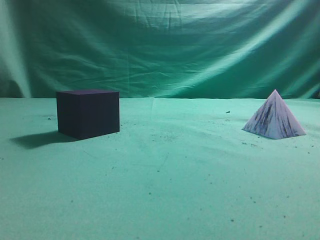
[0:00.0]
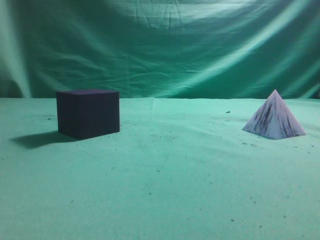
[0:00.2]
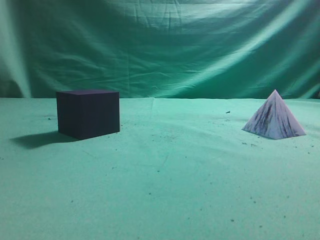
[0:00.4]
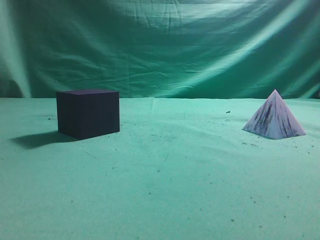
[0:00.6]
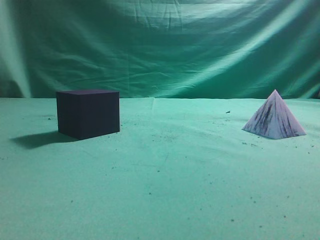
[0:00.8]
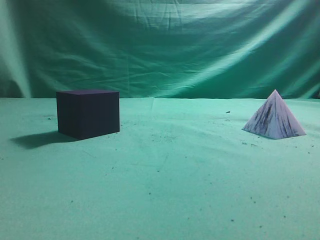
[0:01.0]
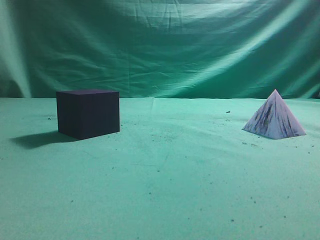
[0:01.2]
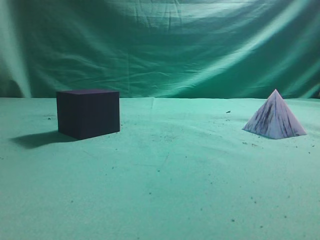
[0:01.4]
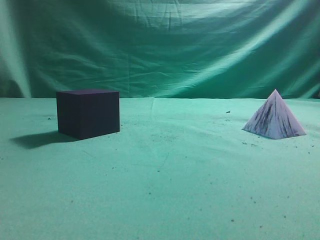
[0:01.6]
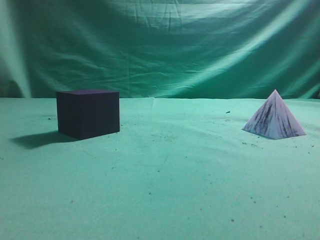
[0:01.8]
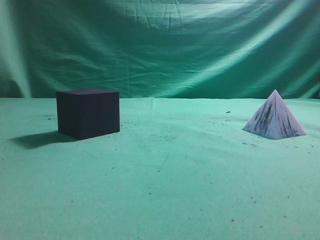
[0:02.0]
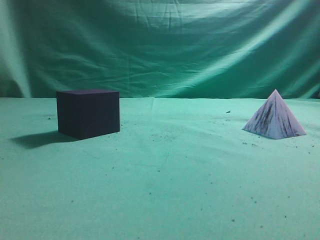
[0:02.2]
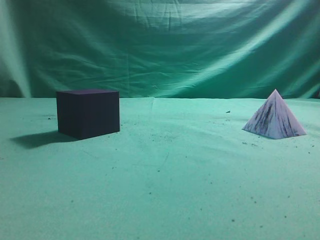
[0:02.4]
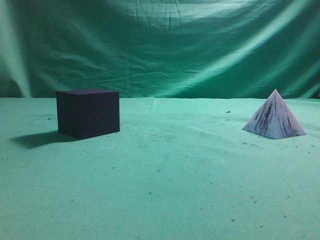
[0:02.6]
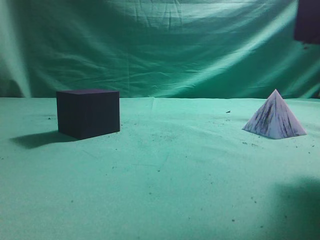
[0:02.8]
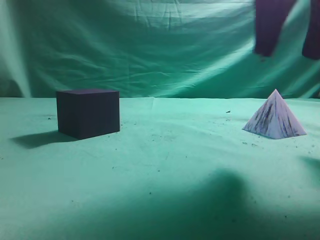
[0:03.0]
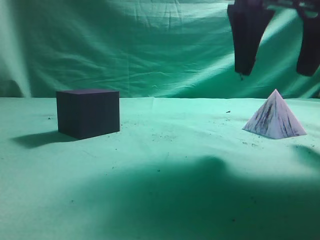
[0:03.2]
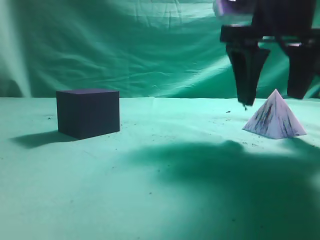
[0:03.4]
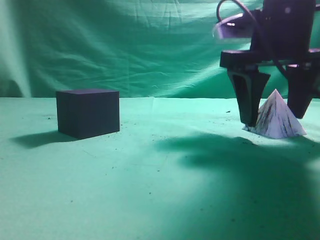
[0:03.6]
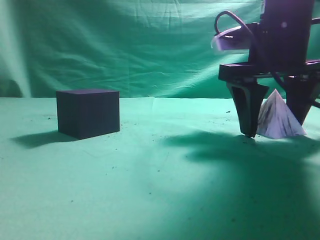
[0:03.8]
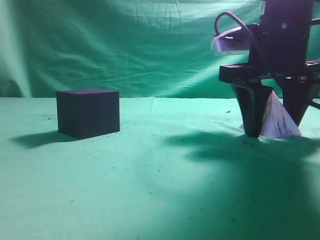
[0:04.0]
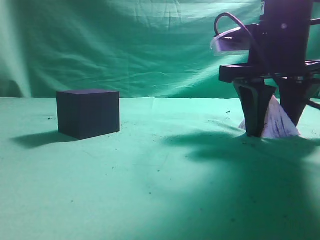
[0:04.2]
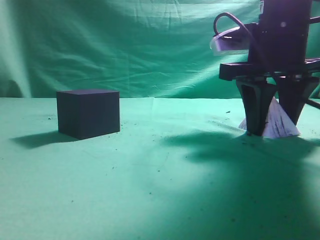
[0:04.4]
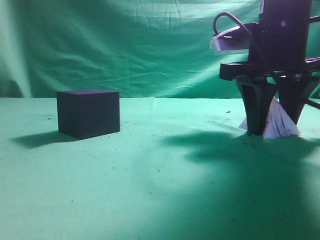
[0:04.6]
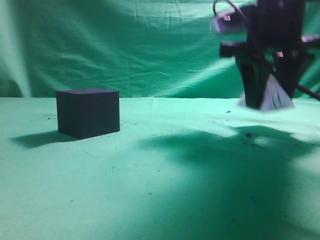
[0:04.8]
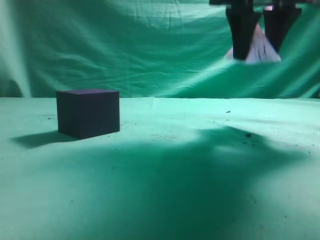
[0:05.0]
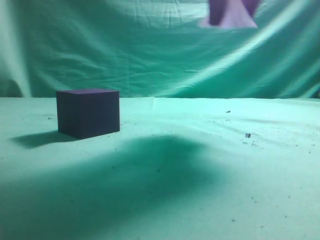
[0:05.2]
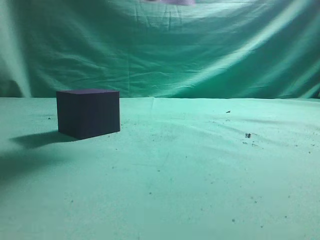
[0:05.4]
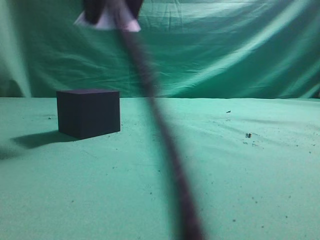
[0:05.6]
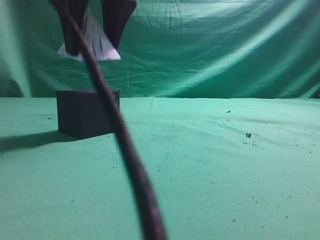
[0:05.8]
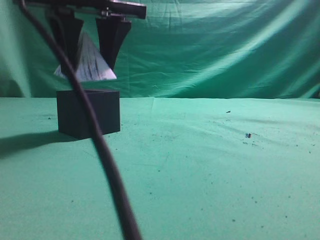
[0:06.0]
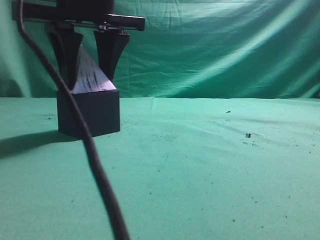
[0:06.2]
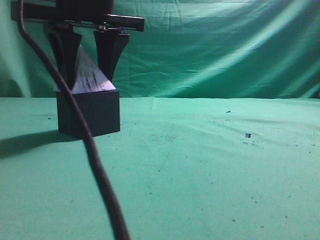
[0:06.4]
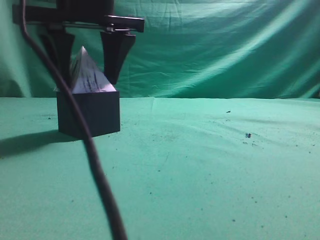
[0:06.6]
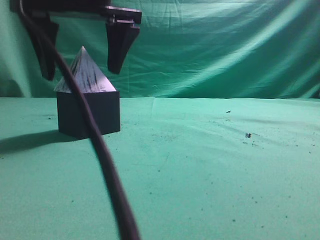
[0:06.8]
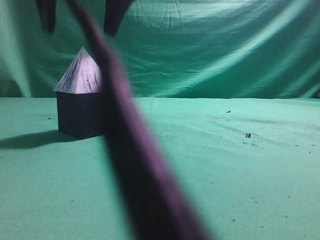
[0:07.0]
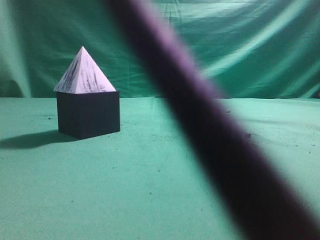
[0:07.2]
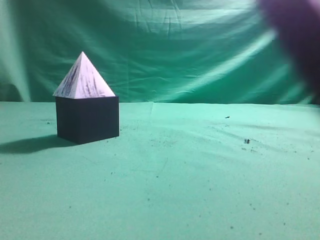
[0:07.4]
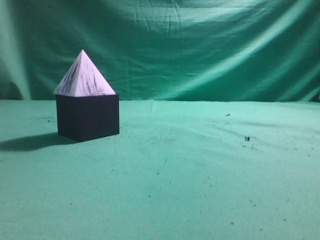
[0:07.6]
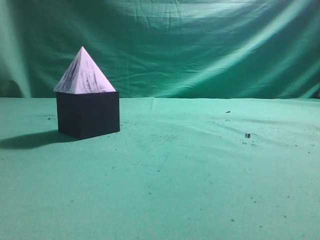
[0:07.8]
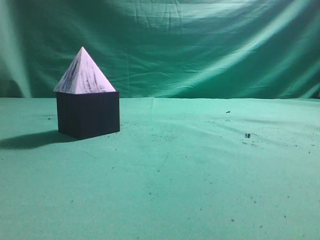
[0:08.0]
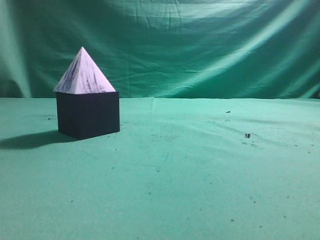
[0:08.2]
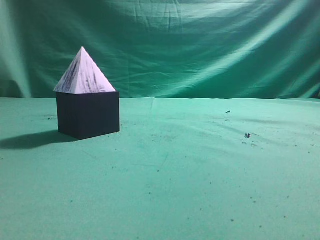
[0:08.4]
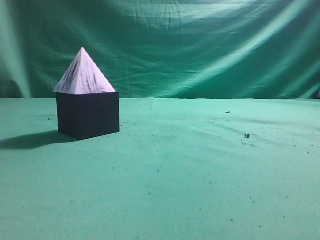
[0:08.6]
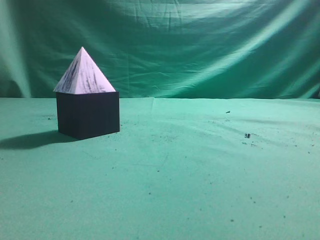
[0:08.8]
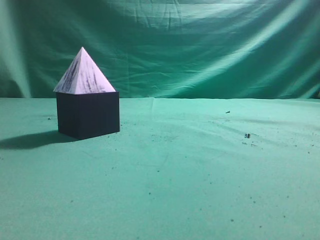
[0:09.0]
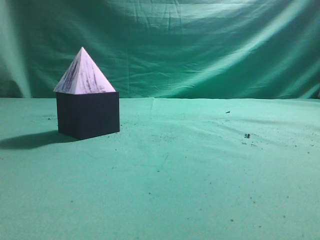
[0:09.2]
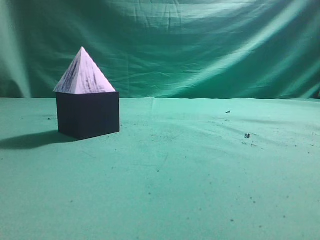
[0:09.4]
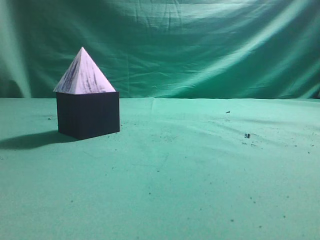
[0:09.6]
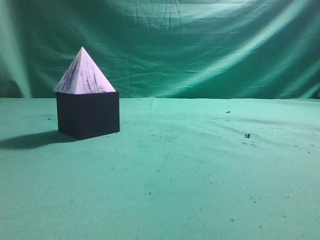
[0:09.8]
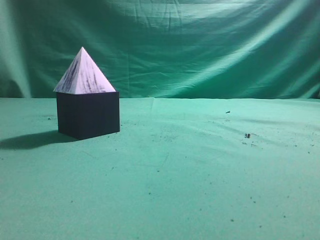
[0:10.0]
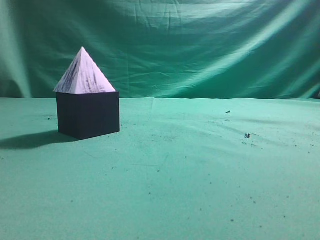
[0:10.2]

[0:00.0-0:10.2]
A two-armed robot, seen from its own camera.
Task of the whole recording: pick up the square pyramid from the table and place it on the cube block.
Step, 0:00.0 to 0:04.8: Grasp the triangular block.
Step, 0:05.0 to 0:07.0: Place the block onto the cube-shaped block.
0:01.4 to 0:03.0: The right gripper goes about 25 cm forward and to the left, and opens up.
0:03.0 to 0:04.4: The right gripper heads downward and forward, covering some 10 cm.
0:04.4 to 0:05.8: The right gripper moves to the left and upward, approximately 25 cm.
0:05.8 to 0:07.2: The right gripper is displaced upward by roughly 10 cm, and opens, then closes once more.
0:07.2 to 0:08.8: The right gripper heads to the right and backward, covering some 35 cm.
